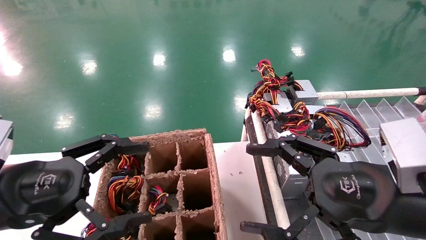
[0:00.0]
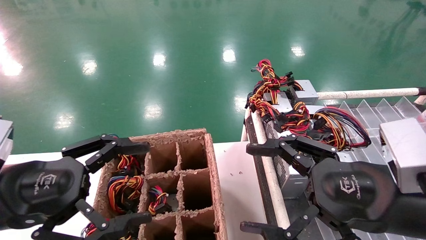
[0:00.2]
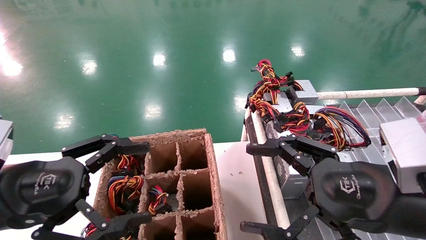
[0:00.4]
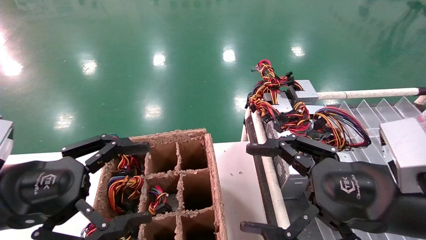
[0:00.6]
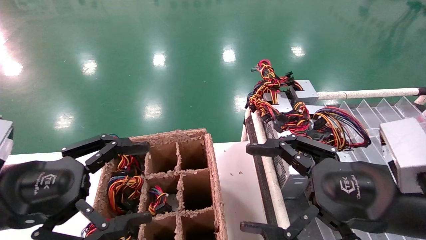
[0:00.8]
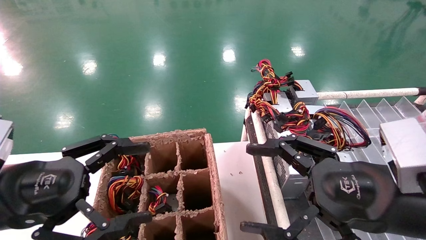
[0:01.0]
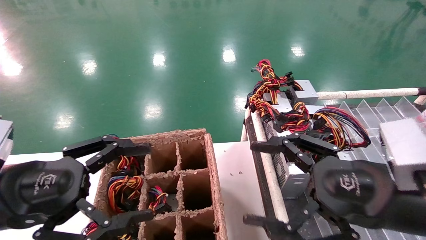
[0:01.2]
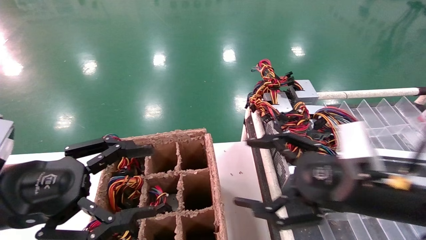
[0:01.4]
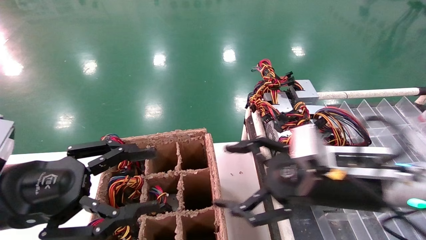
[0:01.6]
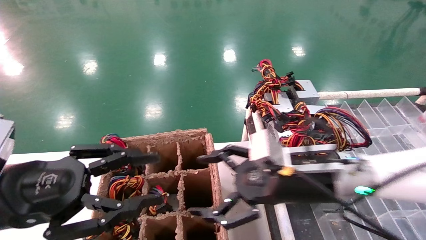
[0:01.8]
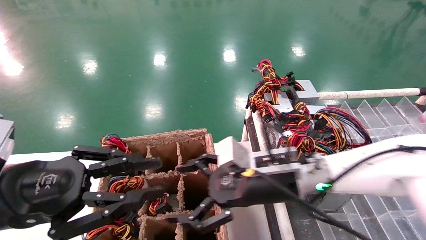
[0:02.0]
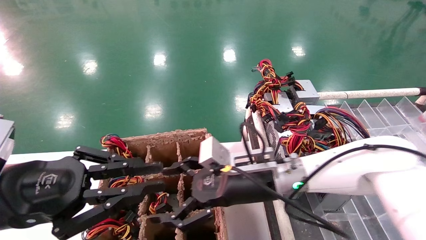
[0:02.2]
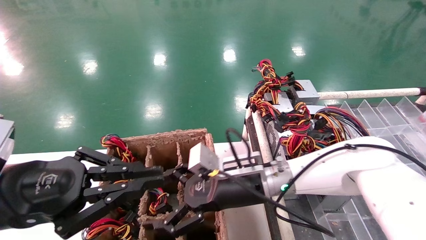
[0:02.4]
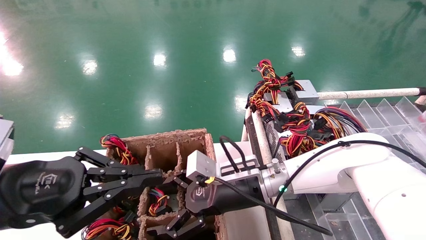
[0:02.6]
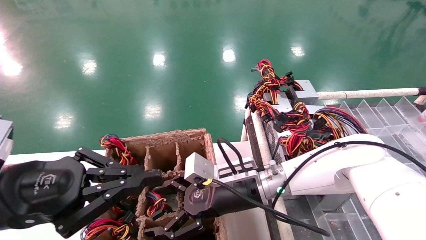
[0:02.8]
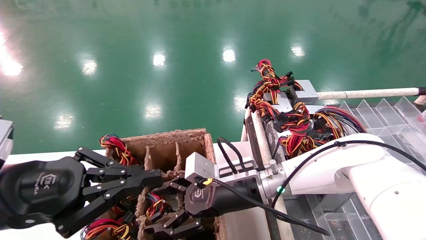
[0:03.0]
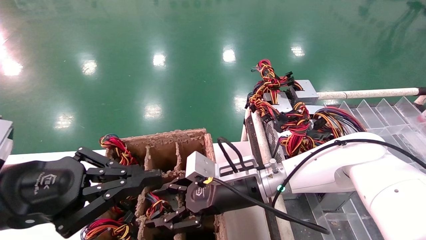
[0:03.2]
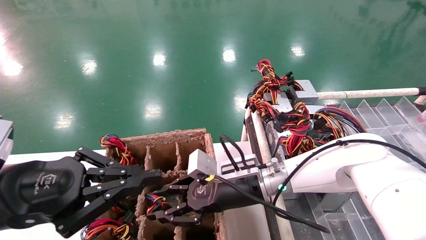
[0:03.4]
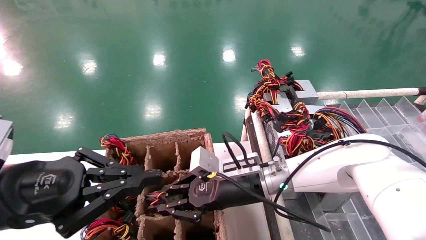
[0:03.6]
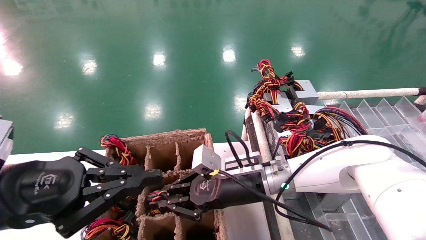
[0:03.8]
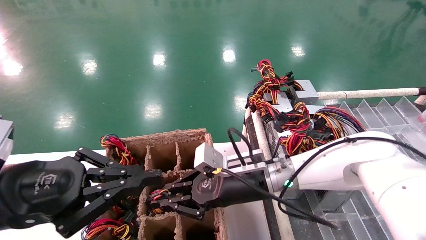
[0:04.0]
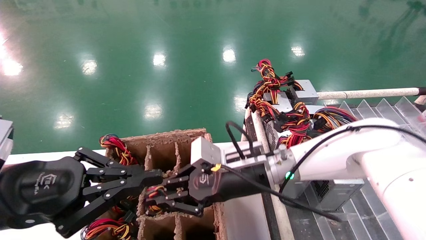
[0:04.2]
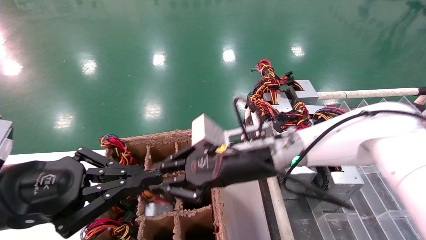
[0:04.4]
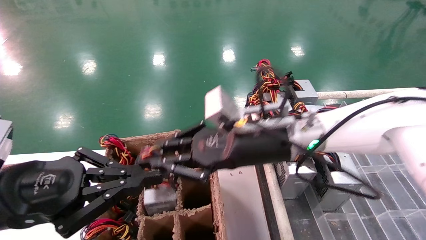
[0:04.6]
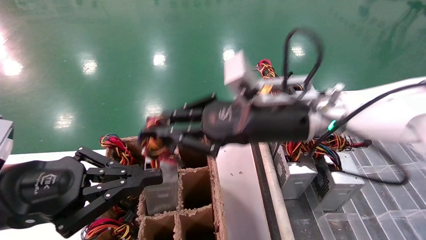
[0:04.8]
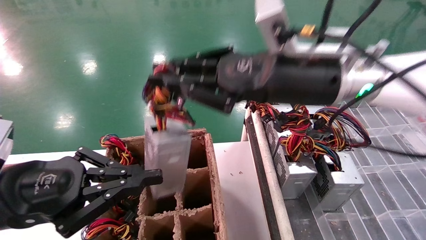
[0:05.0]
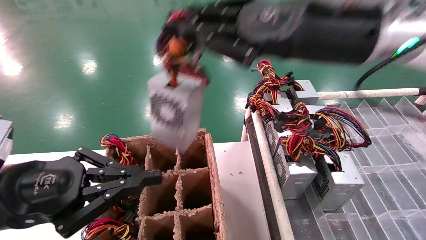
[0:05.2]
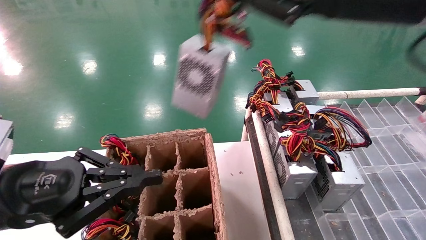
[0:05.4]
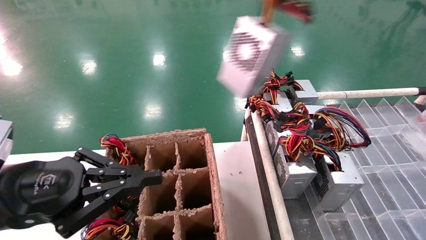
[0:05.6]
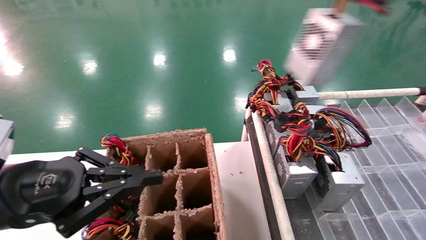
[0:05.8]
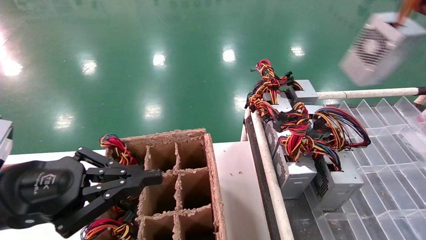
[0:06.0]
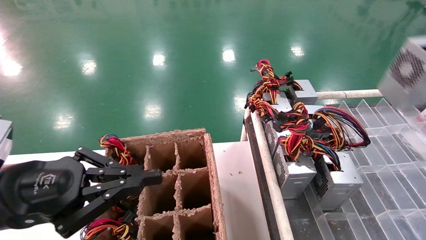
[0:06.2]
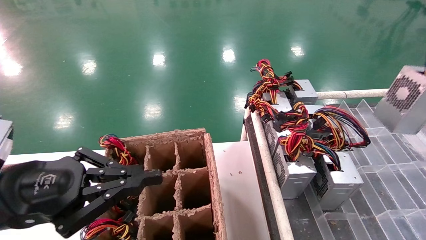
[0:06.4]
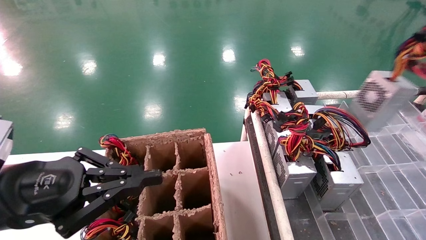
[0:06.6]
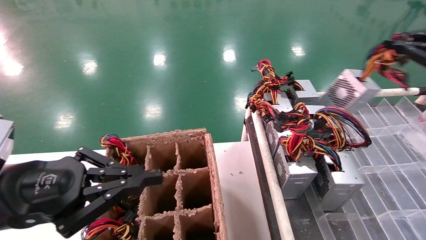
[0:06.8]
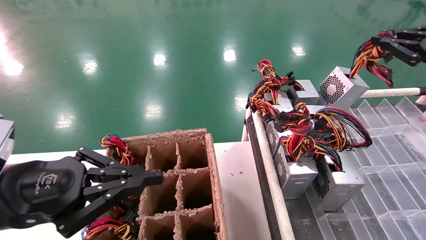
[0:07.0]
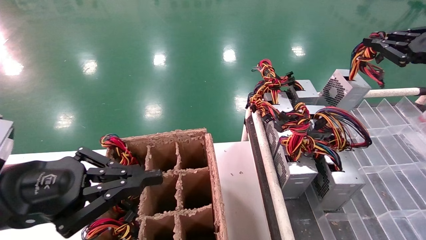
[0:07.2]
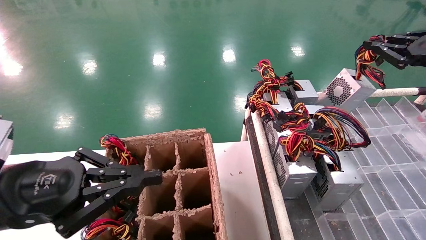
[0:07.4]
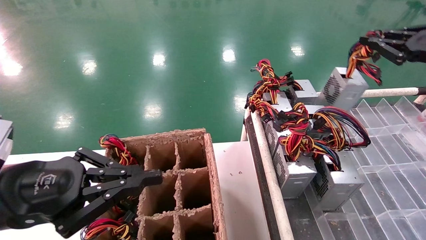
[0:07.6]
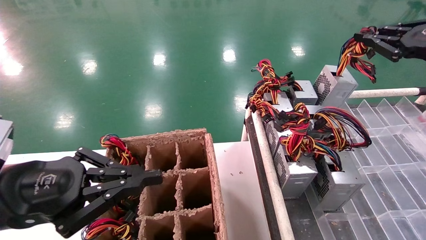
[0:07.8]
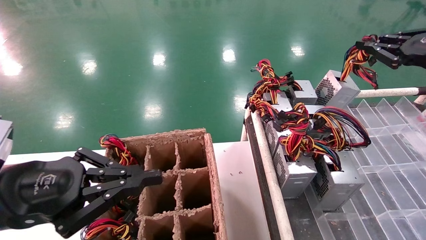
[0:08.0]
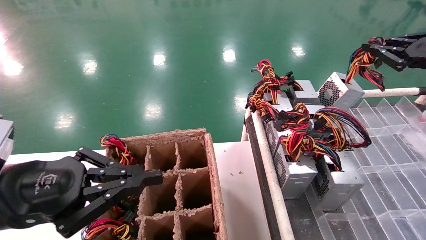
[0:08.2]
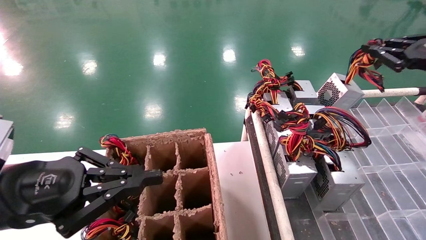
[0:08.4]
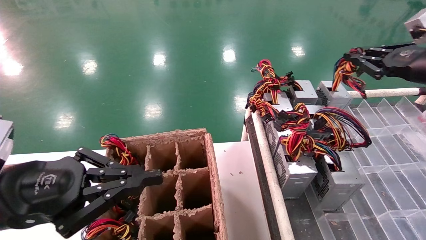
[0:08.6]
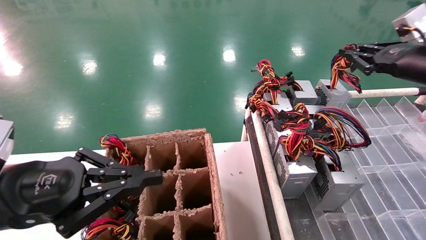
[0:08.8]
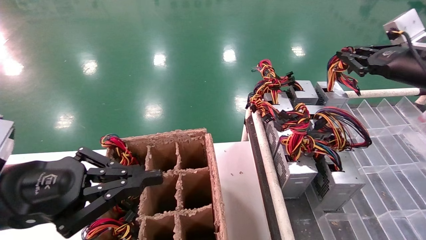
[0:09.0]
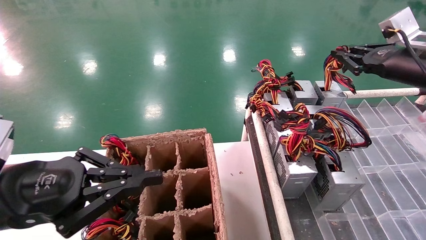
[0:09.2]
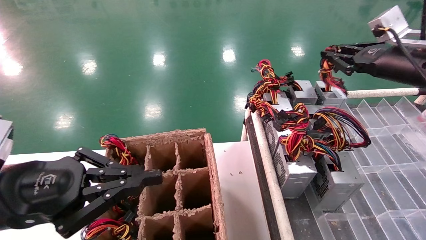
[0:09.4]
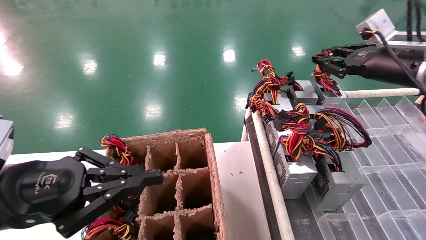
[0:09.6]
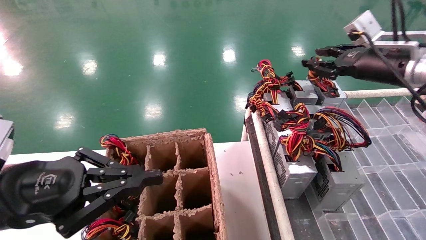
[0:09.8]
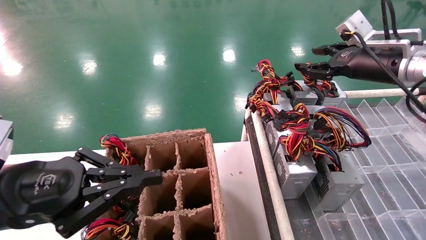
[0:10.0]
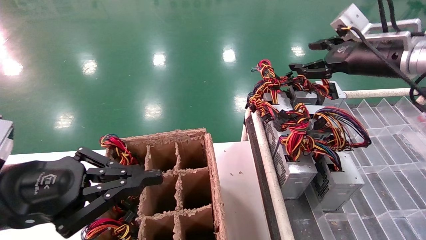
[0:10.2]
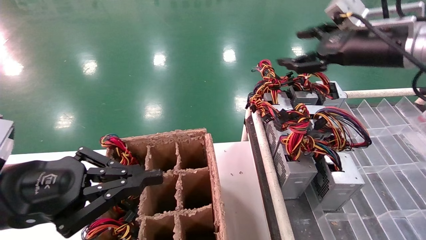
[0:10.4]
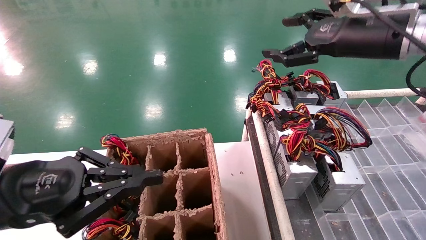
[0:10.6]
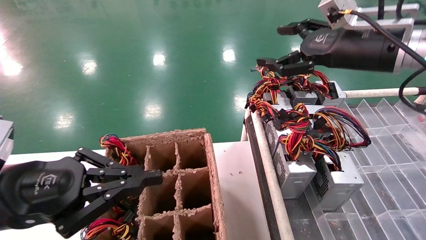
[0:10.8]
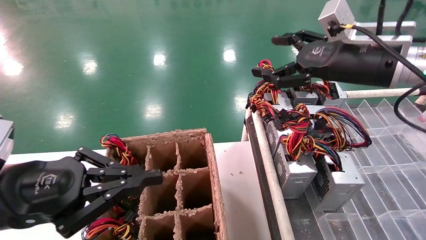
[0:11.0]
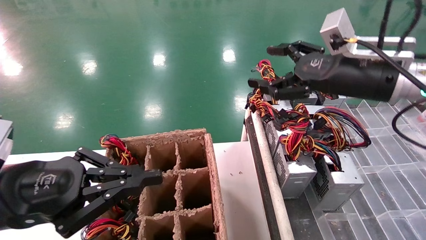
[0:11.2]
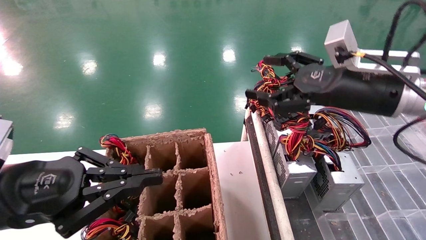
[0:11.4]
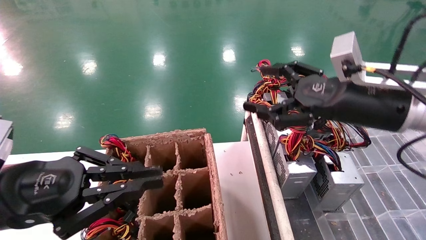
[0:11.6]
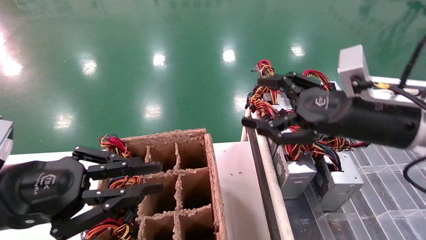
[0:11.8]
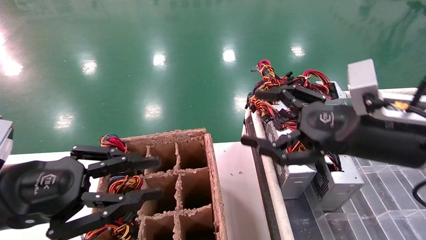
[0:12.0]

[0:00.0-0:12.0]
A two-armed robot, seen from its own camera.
Step, 0:01.6 to 0:03.8: Grab the main unit power supply from the containment box.
Step, 0:04.0 to 0:09.4: Place the main unit power supply in the designated area.
0:00.0 to 0:01.6: The right gripper heads forward, covering about 5 cm.
0:01.6 to 0:03.0: The left gripper closes its fingers. The right gripper is displaced to the left, forward and downward by roughly 15 cm.
0:03.0 to 0:04.4: The right gripper shifts about 10 cm upward, and closes its fingers.
0:04.4 to 0:06.0: The right gripper shifts approximately 40 cm to the right and upward.
0:06.0 to 0:07.6: The right gripper shifts approximately 15 cm forward and downward.
0:07.6 to 0:09.0: The right gripper heads forward, covering about 5 cm.
0:09.0 to 0:10.4: The right gripper goes some 10 cm to the left, and opens its fingers.
0:10.4 to 0:12.0: The right gripper goes roughly 15 cm downward and backward.

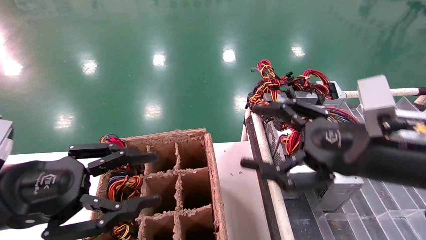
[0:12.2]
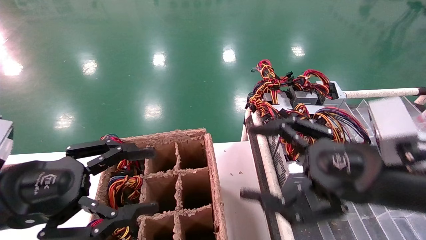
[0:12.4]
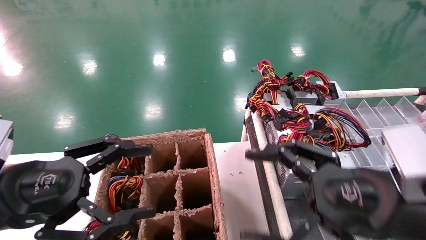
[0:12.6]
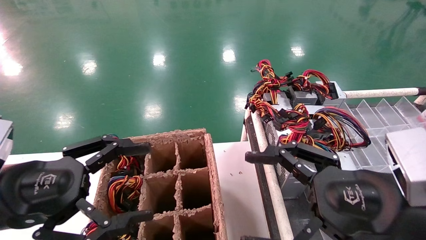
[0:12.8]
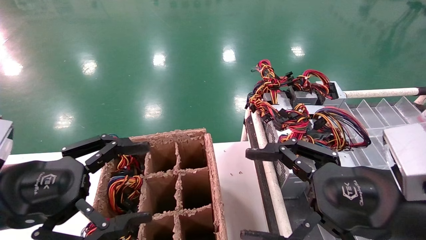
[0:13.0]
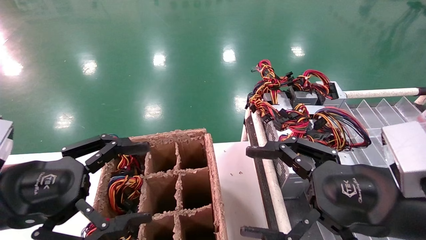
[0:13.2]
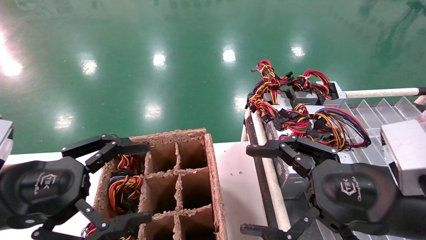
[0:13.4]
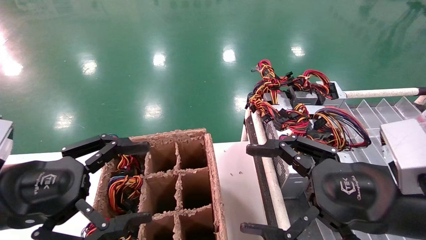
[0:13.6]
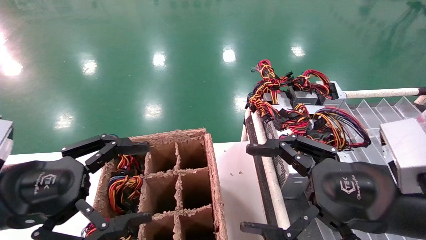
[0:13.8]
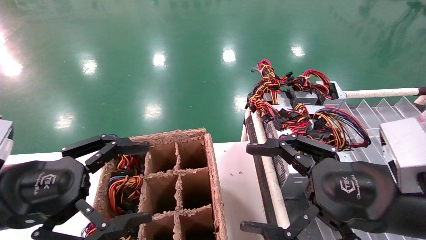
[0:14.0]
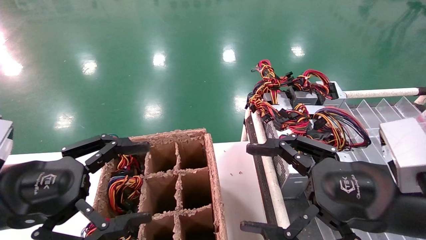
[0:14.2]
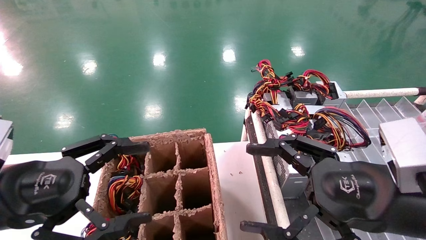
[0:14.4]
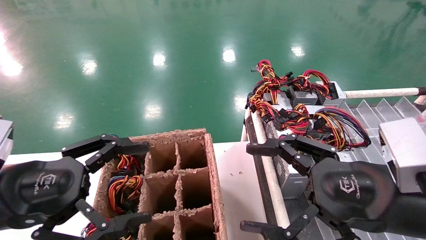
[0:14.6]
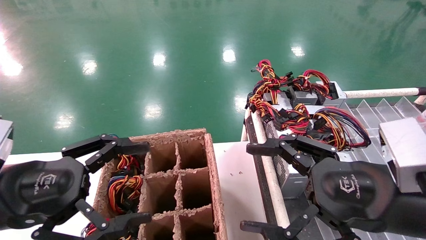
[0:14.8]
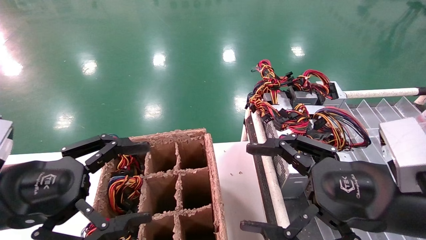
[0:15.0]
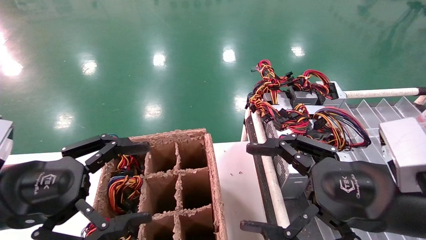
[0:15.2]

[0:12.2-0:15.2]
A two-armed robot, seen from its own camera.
0:12.2 to 0:13.8: The left gripper opens up; the right gripper moves approximately 5 cm.
0:13.8 to 0:15.2: Neither gripper changes place.
